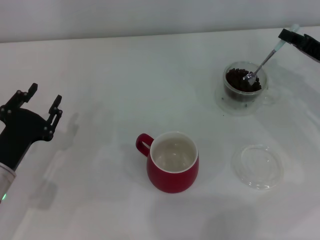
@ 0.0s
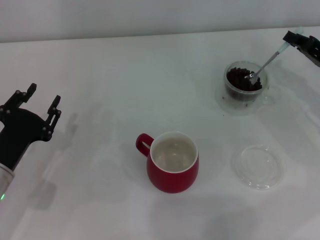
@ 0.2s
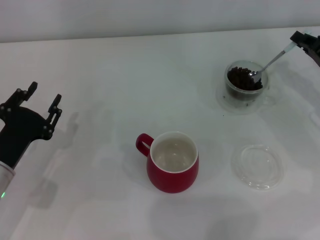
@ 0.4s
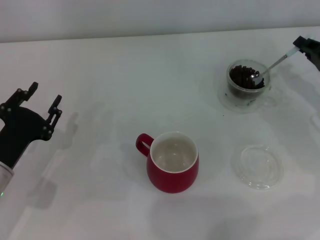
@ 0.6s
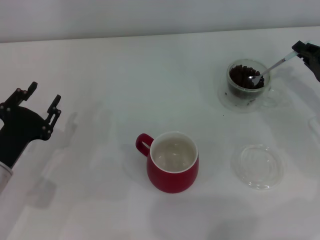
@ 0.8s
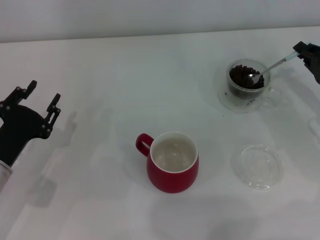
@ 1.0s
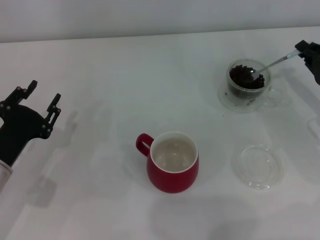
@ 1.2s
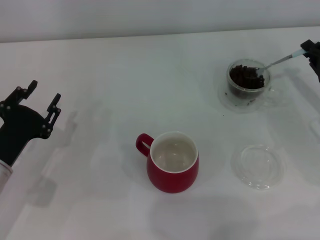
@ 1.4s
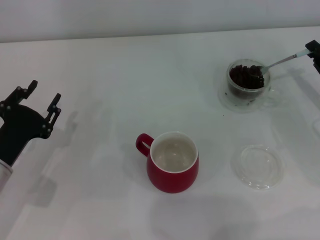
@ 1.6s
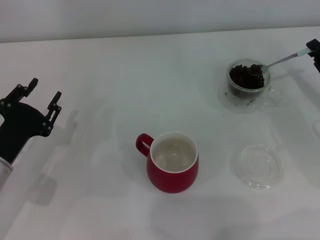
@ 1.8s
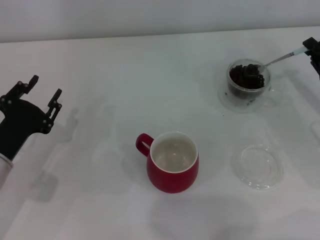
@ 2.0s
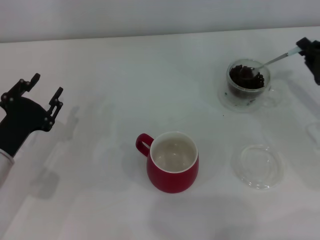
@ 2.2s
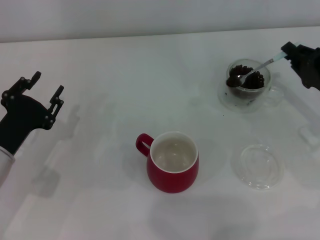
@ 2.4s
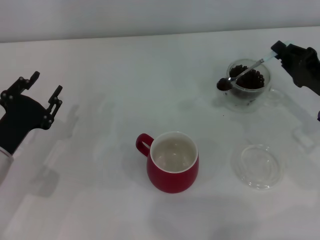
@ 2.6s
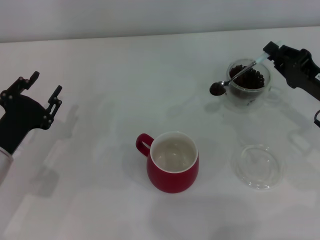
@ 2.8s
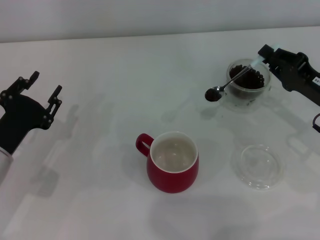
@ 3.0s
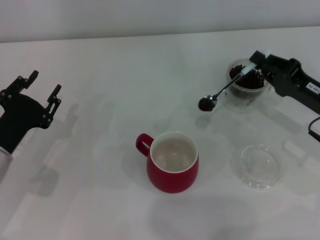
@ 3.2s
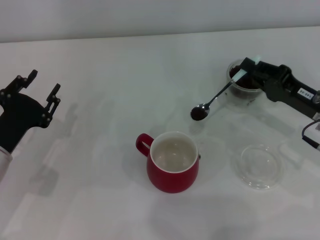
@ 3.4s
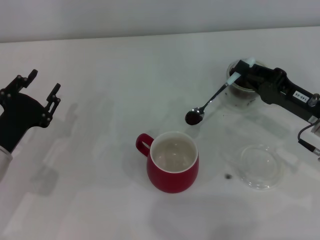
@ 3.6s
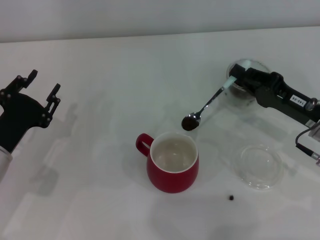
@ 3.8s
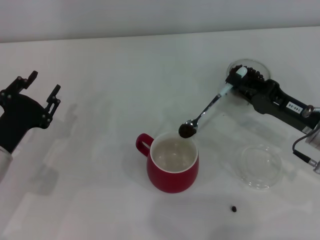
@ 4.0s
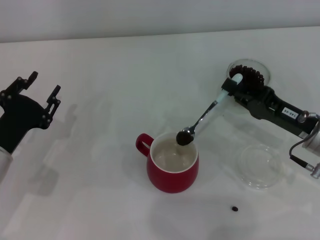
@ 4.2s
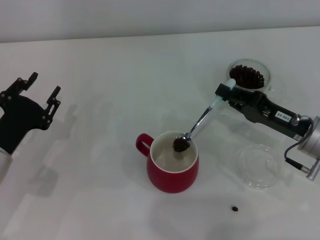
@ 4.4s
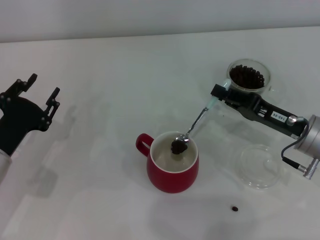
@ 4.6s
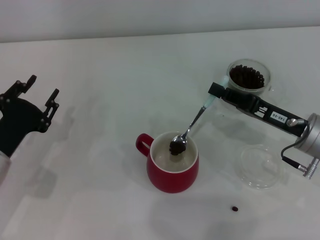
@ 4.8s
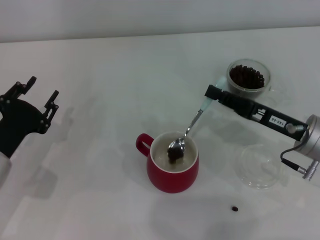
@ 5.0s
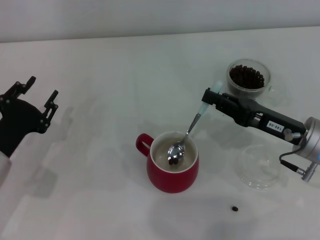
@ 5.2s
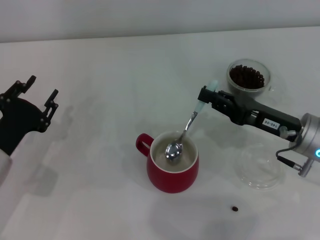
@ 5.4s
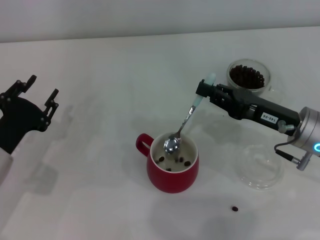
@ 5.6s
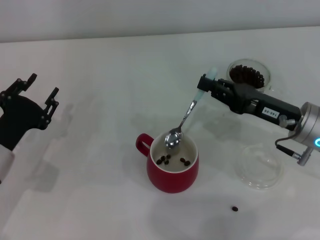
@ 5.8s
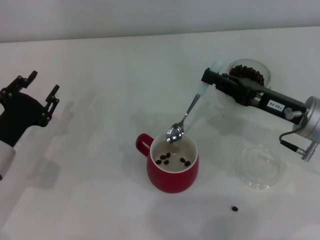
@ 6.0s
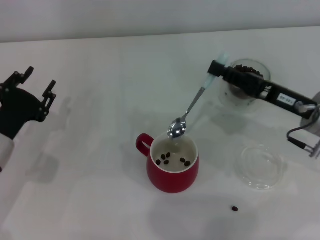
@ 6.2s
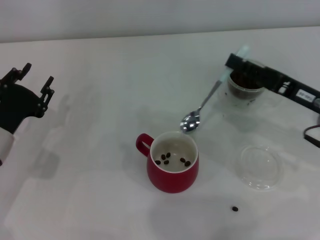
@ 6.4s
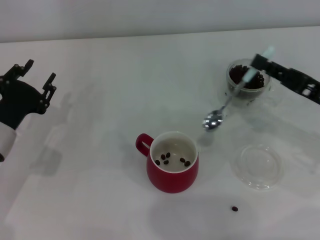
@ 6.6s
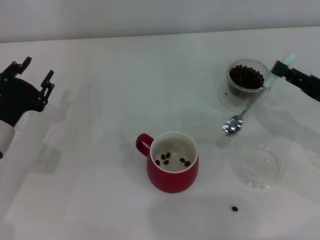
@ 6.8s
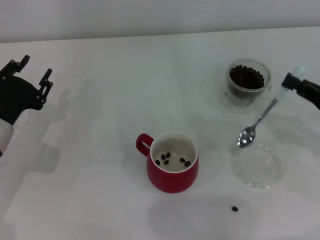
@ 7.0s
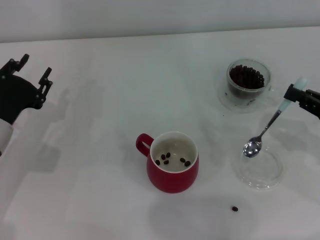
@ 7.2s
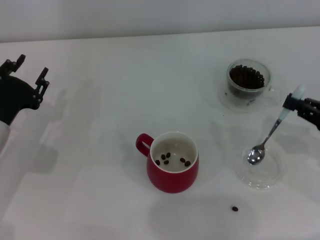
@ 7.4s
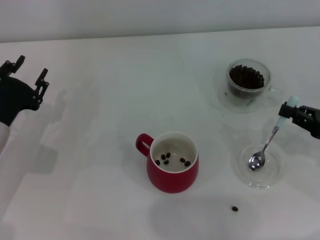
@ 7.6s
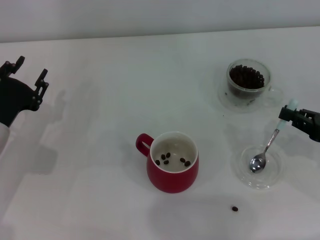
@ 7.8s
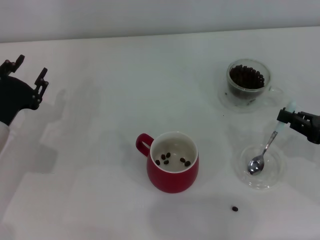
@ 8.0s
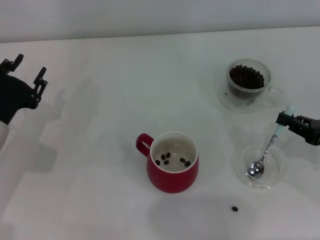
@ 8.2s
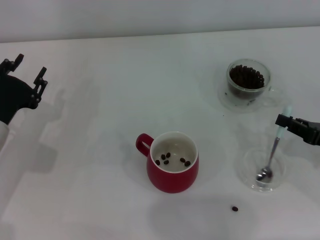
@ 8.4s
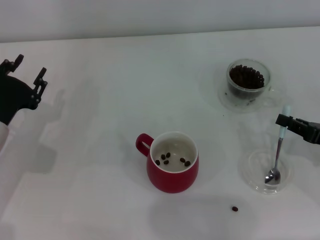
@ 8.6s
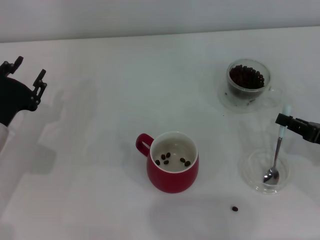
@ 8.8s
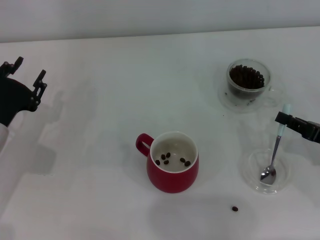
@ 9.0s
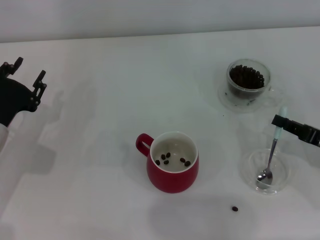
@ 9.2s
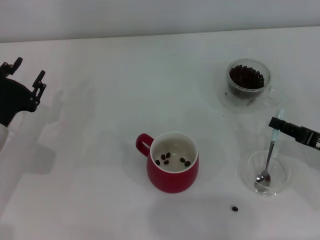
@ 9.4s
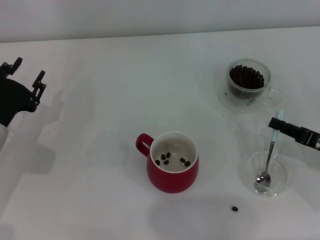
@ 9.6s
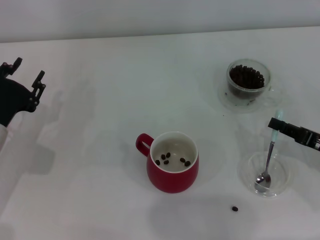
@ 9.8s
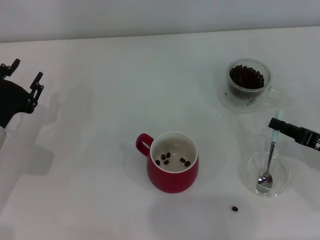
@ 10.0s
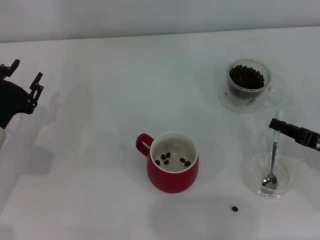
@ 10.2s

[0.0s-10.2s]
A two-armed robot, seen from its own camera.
Task of the whole recording: Use a blue spoon to take out the coffee beans from the glass and pour them into the red cup.
Step, 0.0s to 6.2s: Scoop a spoonful of beans into the cup with the right gripper.
3.0s to 4.4s: The right gripper ends up some 5 cm from where it was.
5.8s to 7.2s: The right gripper moves to the right and backward, about 10 cm.
7.2s to 8.8s: The grippers make only small movements.
8.8s to 10.2s: The two grippers keep their place.

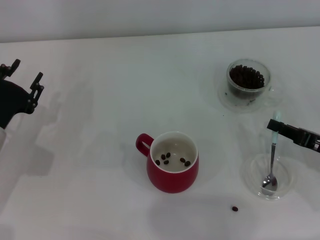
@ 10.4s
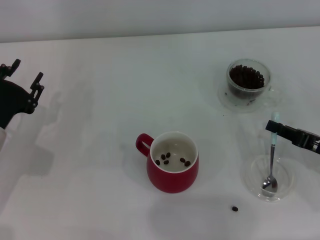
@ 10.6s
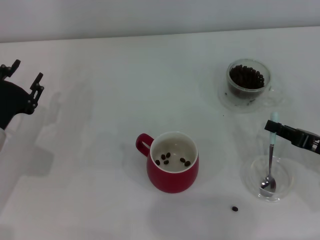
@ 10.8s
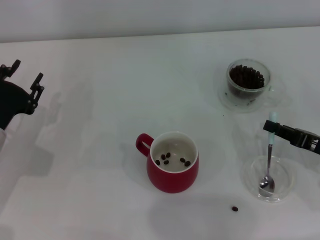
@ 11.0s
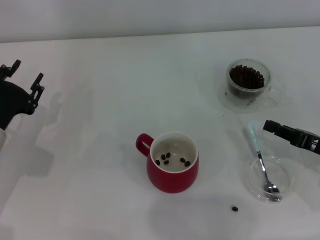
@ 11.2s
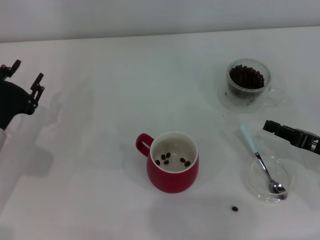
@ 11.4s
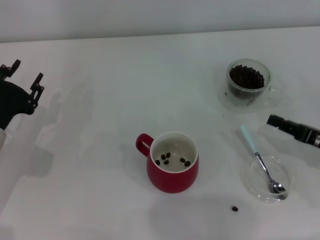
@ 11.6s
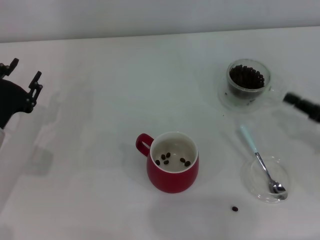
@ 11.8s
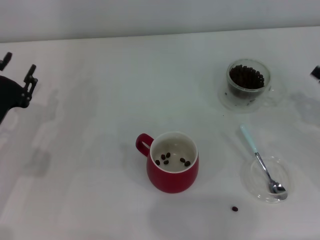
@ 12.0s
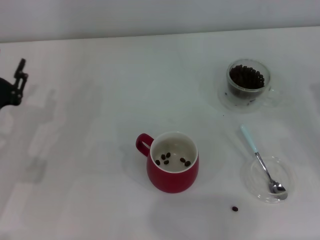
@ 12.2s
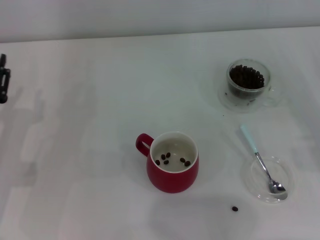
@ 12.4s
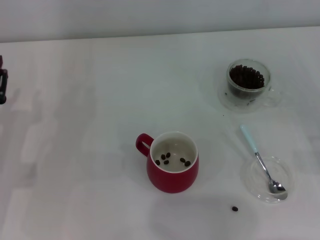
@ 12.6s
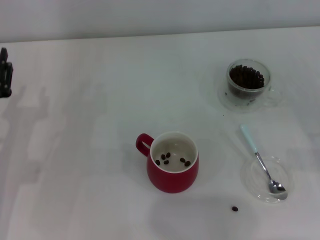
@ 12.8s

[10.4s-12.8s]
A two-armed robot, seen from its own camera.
Task of the whole recording: Use a blue spoon to take out the coffee beans from the glass and pour them into the red cup.
10.4s to 11.6s: The two grippers keep their place.
11.6s to 12.8s: The right gripper travels to the right by about 5 cm.
